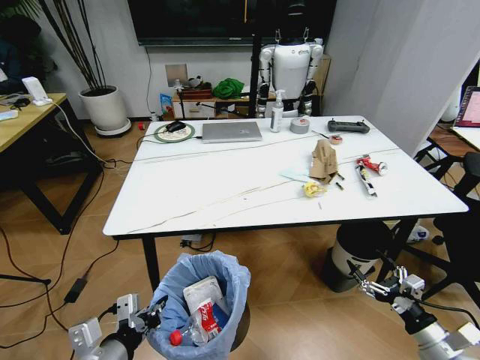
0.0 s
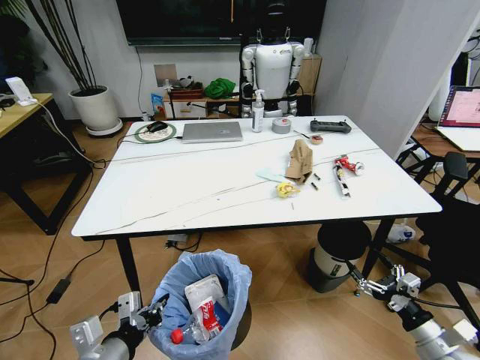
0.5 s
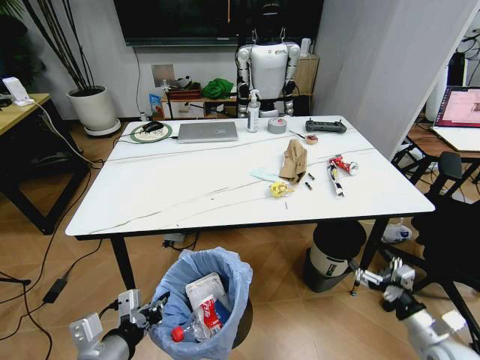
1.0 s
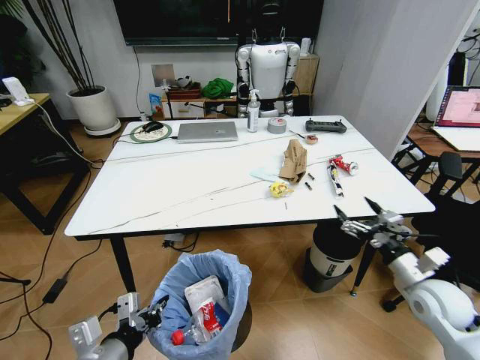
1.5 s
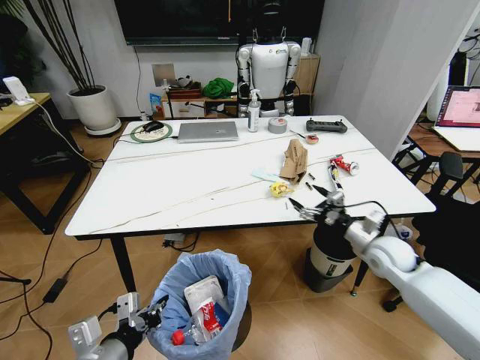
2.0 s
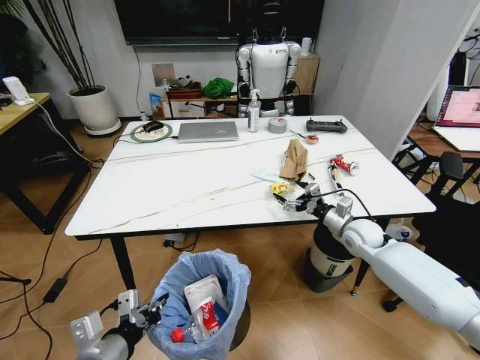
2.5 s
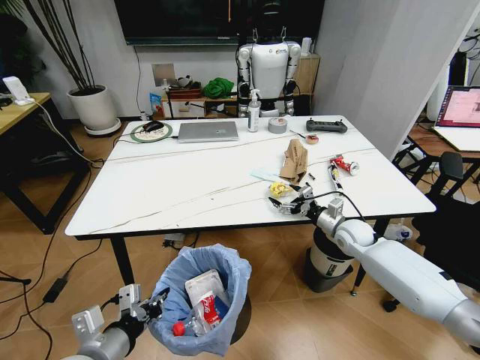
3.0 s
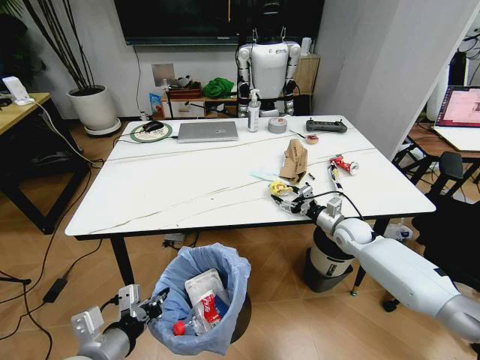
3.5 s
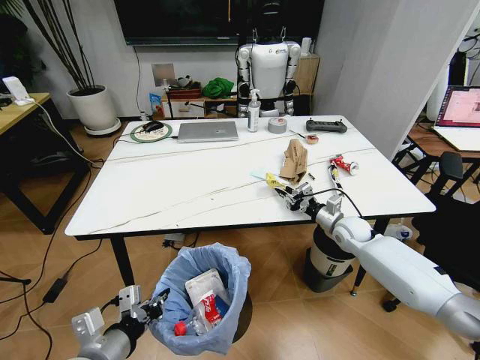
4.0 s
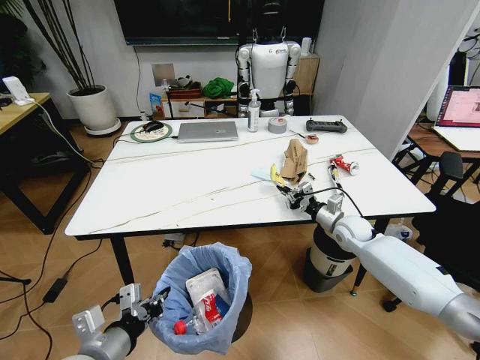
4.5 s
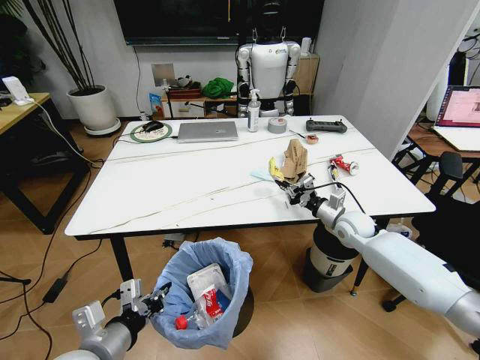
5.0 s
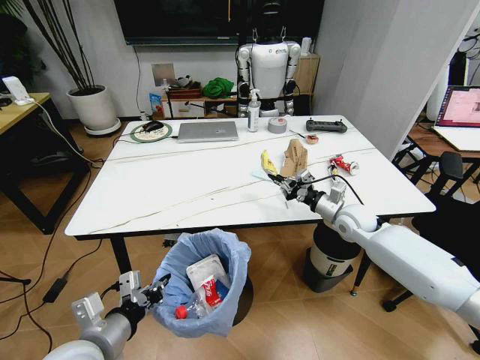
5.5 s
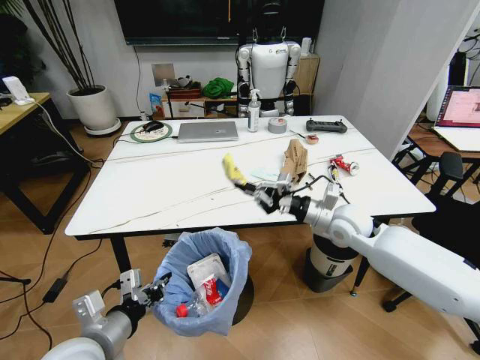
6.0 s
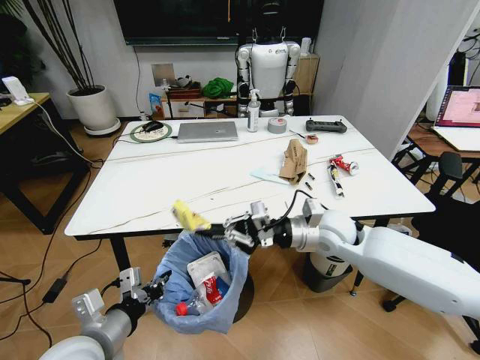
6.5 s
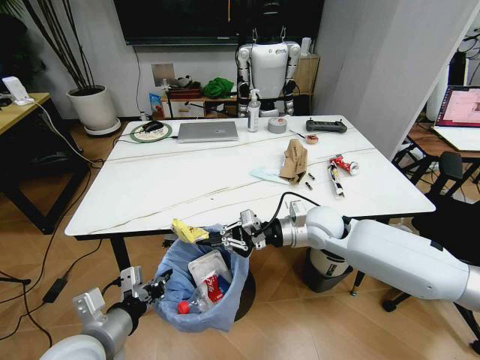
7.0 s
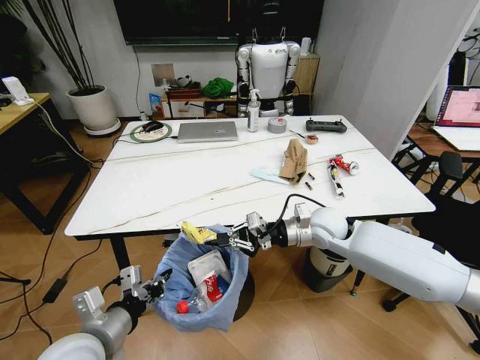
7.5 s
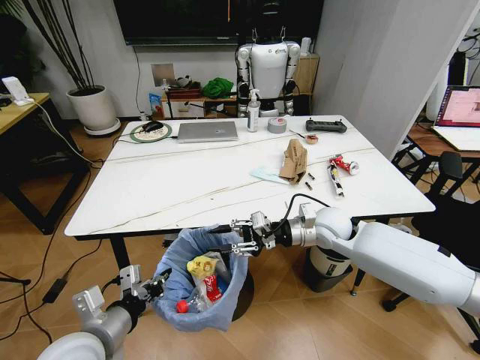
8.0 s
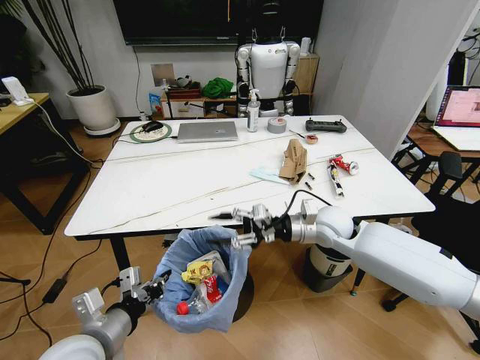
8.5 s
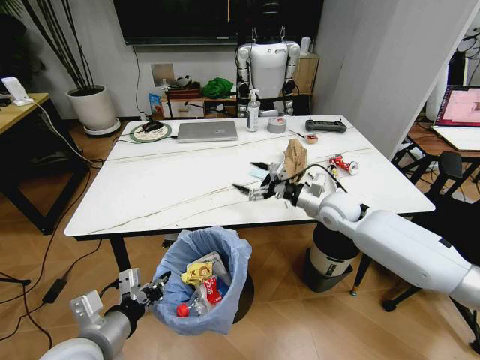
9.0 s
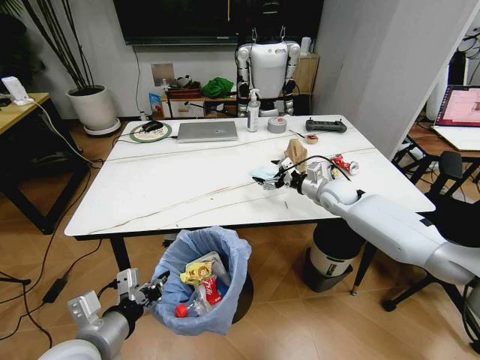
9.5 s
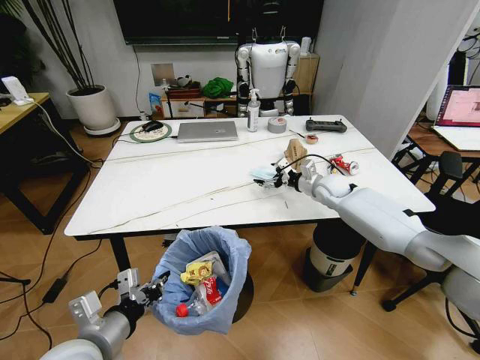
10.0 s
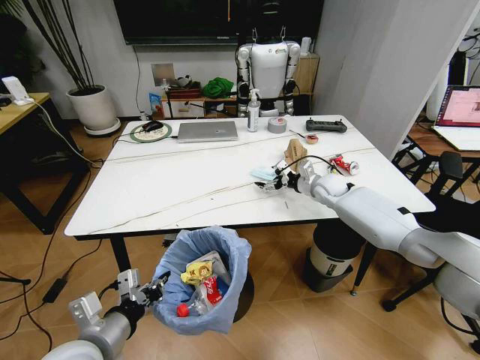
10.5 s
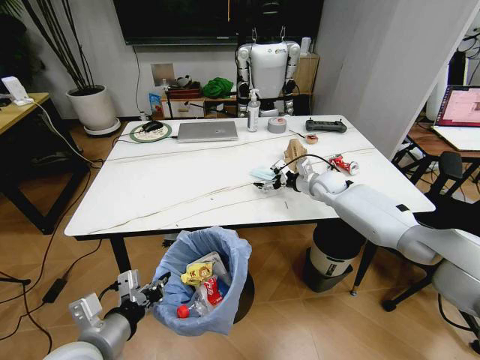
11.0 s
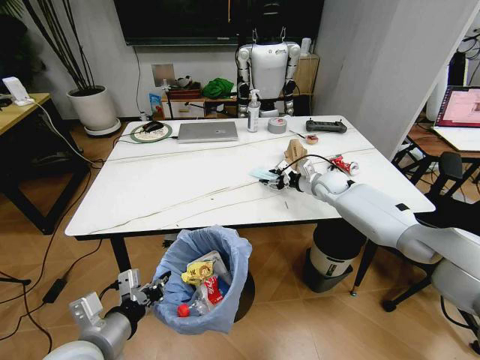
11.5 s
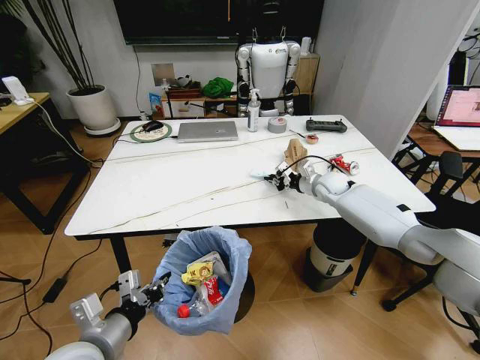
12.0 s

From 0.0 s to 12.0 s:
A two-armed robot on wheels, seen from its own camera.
Task of the whole recording: Pick up the trash bin and place the trash from the table into it.
From 0.0 s to 2.0 s: The right gripper travels forward by about 25 cm.
From 2.0 s to 4.0 s: The right gripper moves forward, roughly 10 cm, and closes.
From 4.0 s to 6.0 s: The right gripper goes roughly 15 cm upward, to the left and backward.
From 6.0 s to 8.0 s: The right gripper opens up.
From 8.0 s to 10.0 s: The right gripper heads forward and to the right, covering some 15 cm, and opens up.
From 10.0 s to 12.0 s: The right gripper closes.

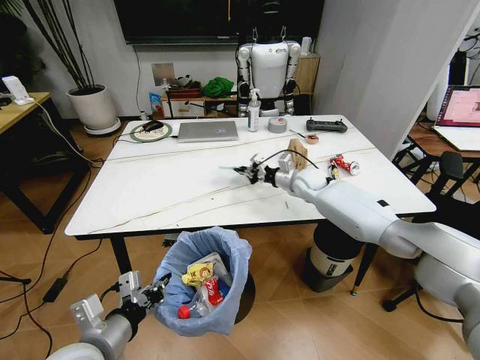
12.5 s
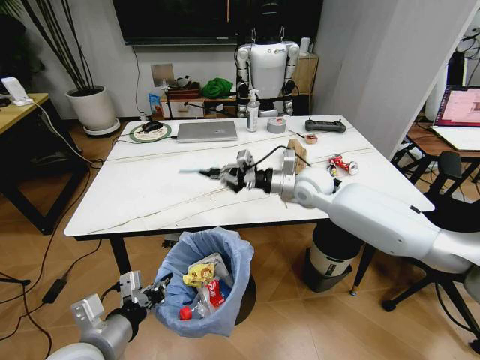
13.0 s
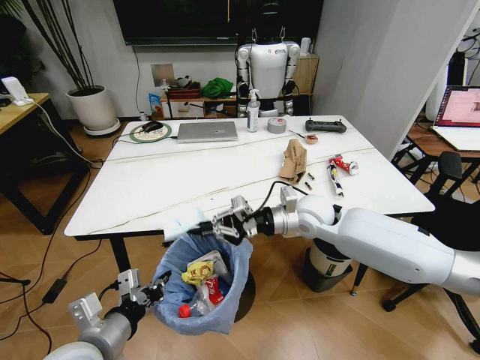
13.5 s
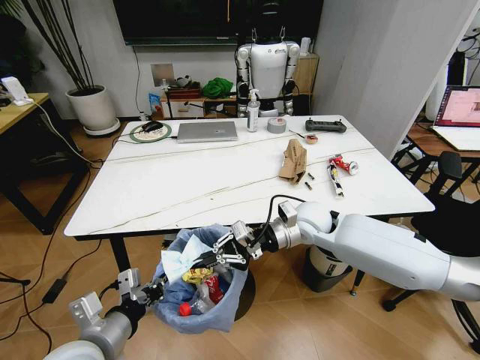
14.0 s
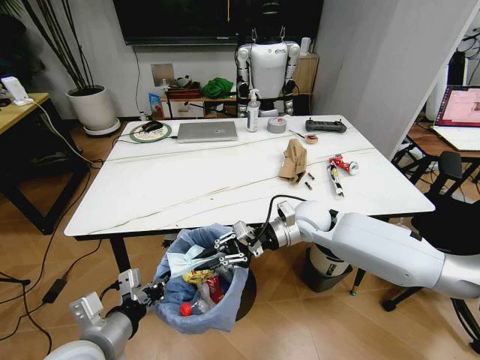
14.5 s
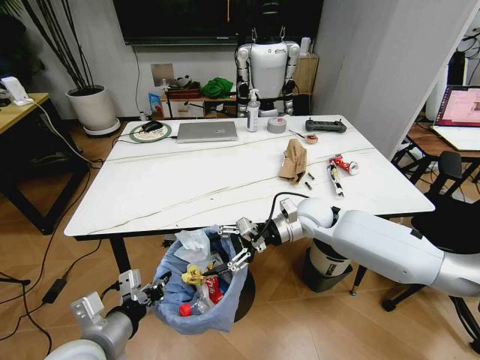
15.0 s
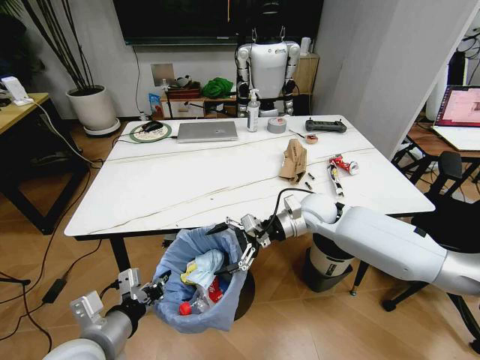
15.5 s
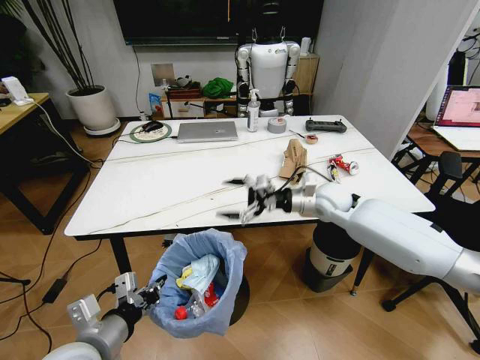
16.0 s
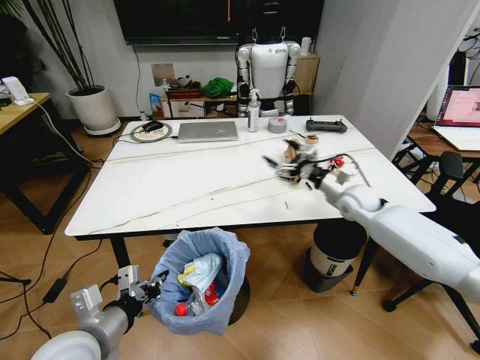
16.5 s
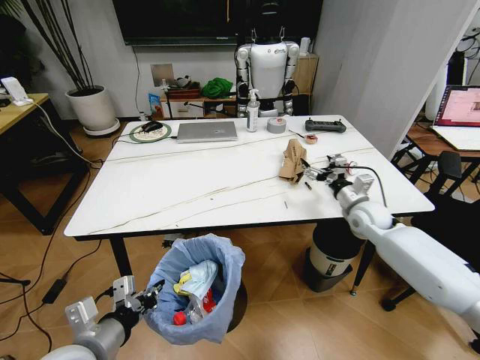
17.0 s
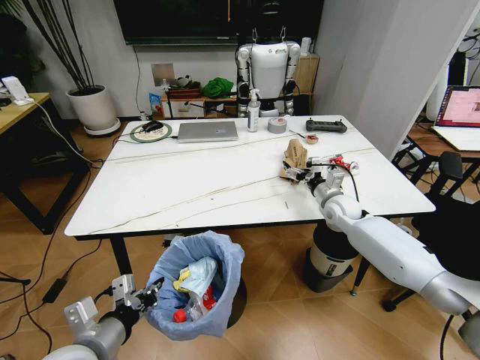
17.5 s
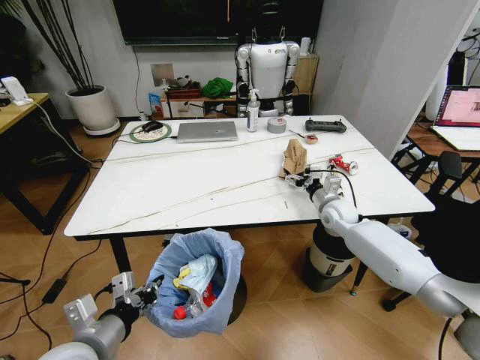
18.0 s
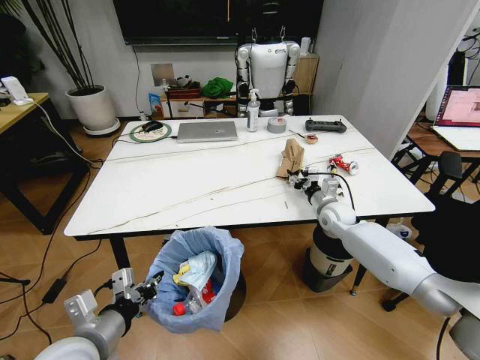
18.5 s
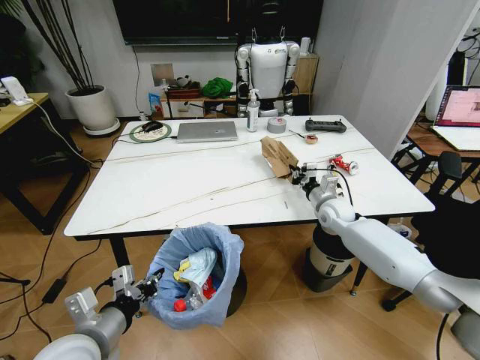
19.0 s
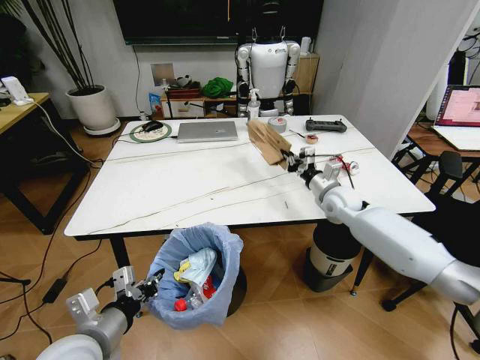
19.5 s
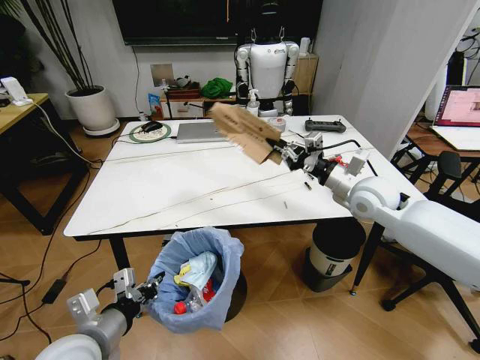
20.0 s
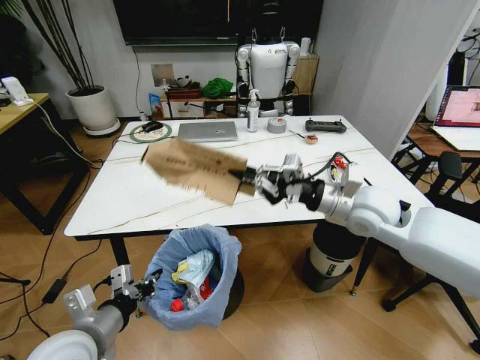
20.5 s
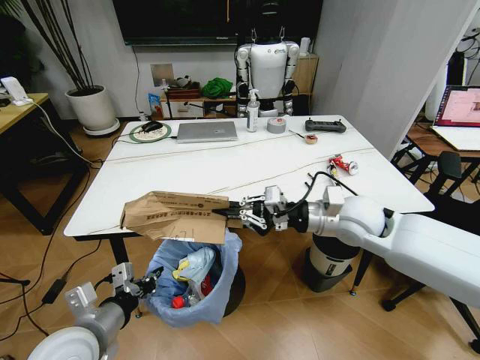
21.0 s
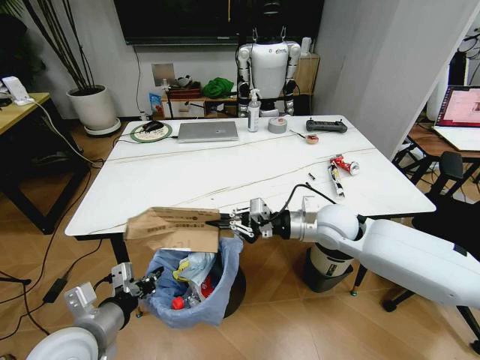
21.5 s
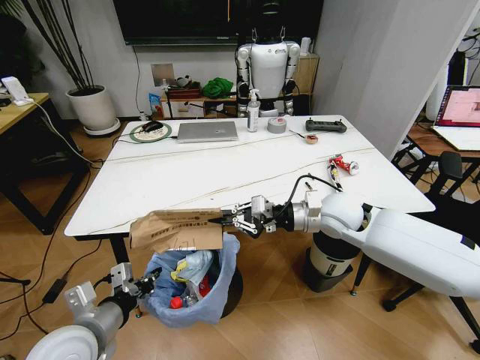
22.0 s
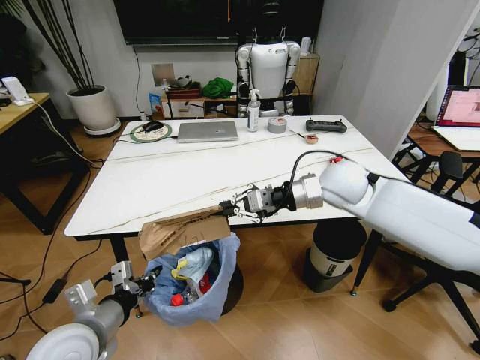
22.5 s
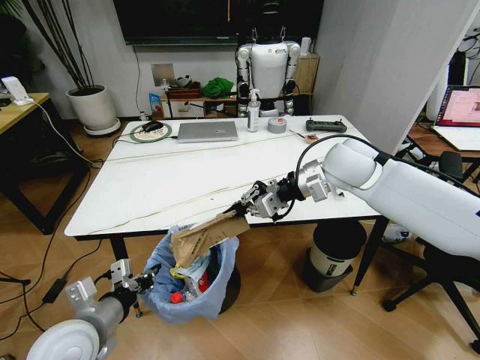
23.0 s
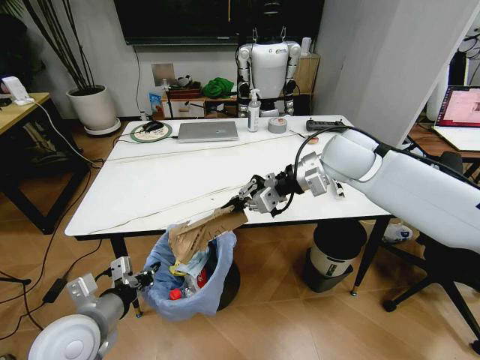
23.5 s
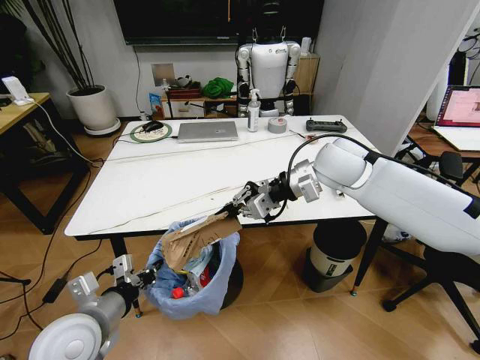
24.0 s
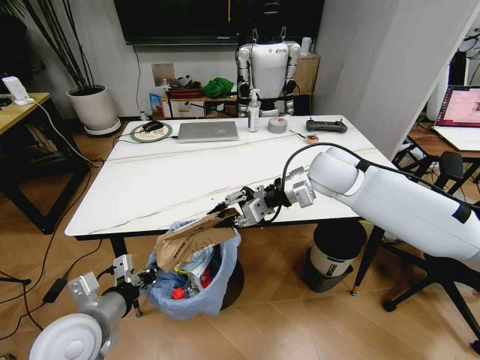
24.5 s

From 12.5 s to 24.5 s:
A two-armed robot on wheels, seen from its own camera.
Task of the whole recording: Pick up the trash bin and place the trash from the table into it.
From 12.5 s to 14.5 s: The right gripper travels backward by roughly 15 cm.
From 14.5 s to 16.5 s: The right gripper goes about 15 cm to the right and forward, and opens up.
From 16.5 s to 18.5 s: The right gripper is displaced downward by roughly 10 cm, and closes up.
From 18.5 s to 20.5 s: The right gripper is displaced upward and backward by roughly 20 cm, and closes its fingers.
From 20.5 s to 22.5 s: The right gripper travels forward by about 5 cm, and goes downward and returns, approximately 5 cm each way.

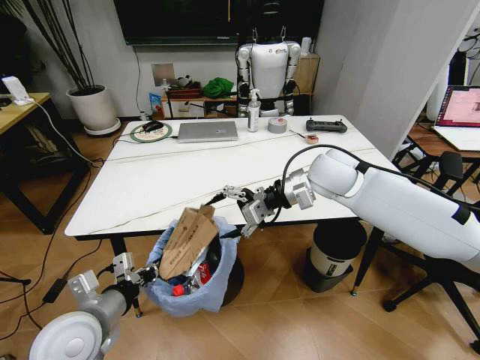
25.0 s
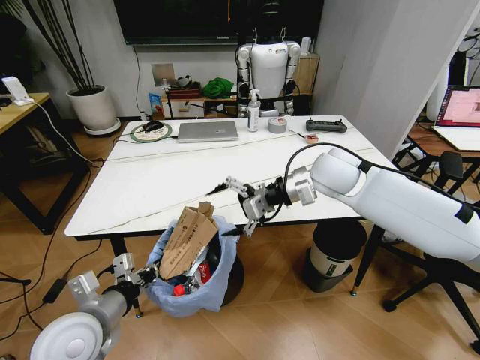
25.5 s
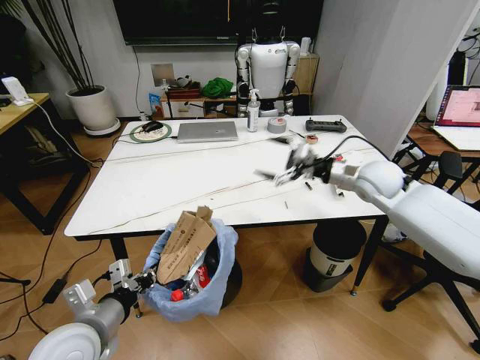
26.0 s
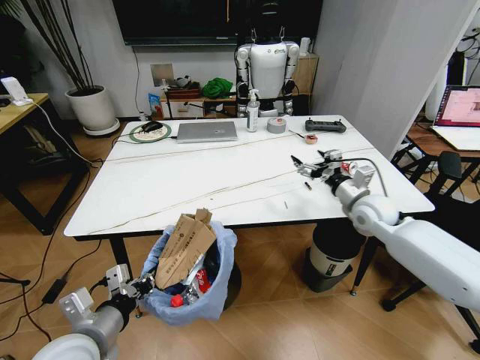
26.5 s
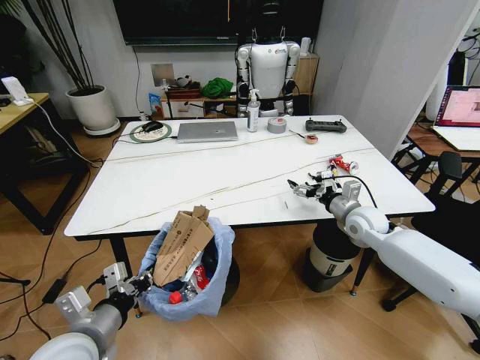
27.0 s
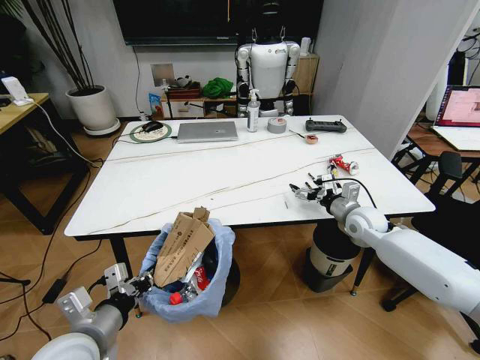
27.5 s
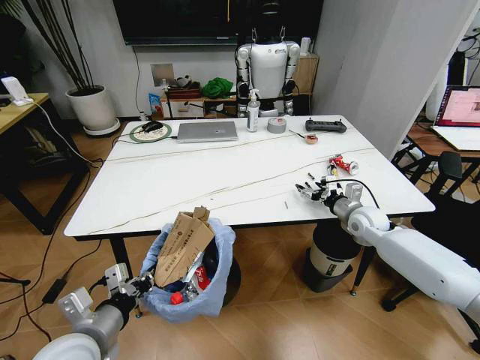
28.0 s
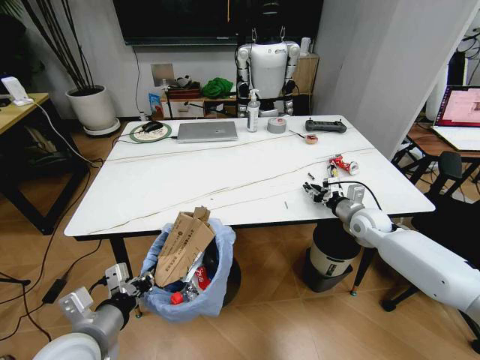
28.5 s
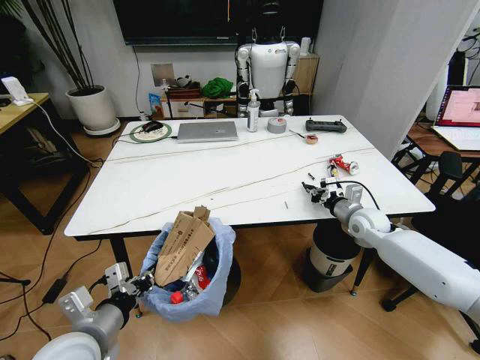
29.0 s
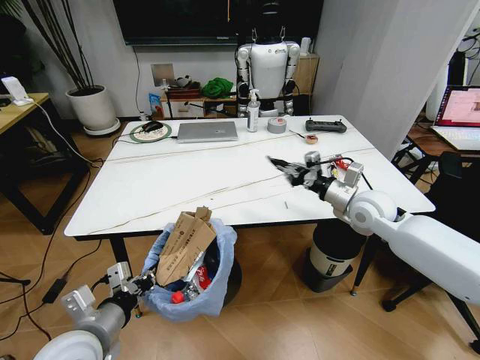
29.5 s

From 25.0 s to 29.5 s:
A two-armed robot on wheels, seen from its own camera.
Task of the whole recording: Pick up the trash bin and place the trash from the table into it.
From 25.0 s to 27.0 s: The right gripper is displaced downward and to the right by approximately 20 cm.
From 27.0 s to 29.5 s: The right gripper closes.
